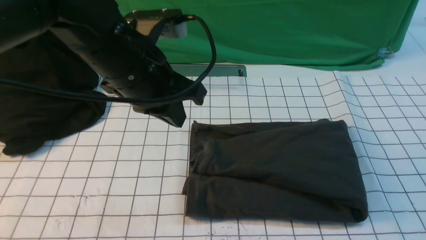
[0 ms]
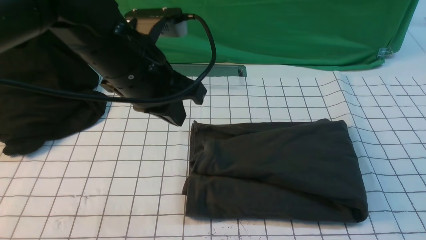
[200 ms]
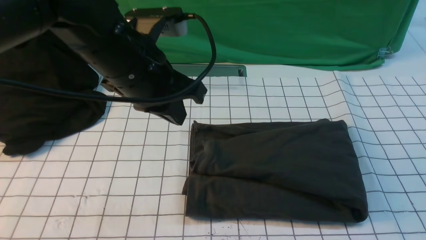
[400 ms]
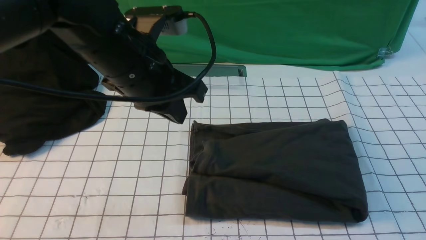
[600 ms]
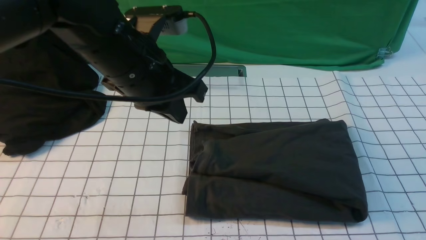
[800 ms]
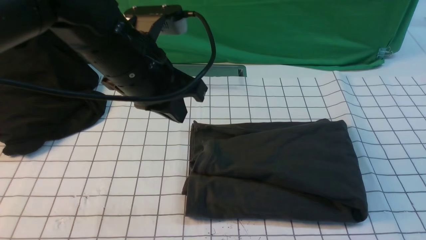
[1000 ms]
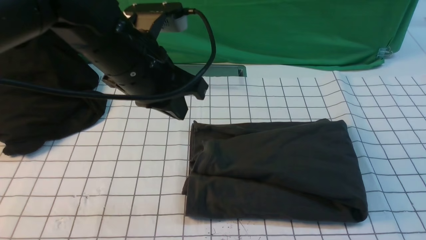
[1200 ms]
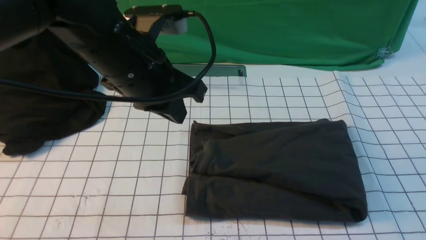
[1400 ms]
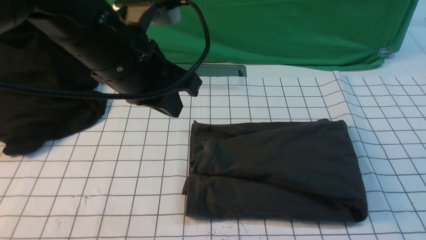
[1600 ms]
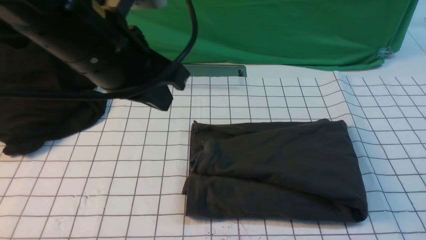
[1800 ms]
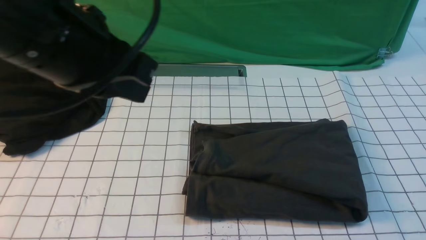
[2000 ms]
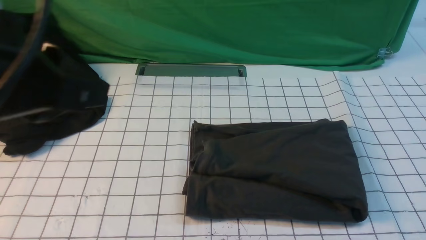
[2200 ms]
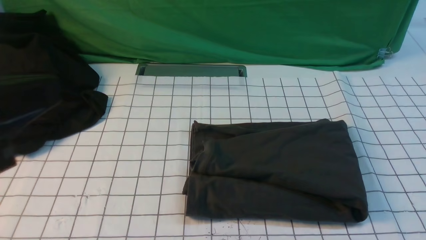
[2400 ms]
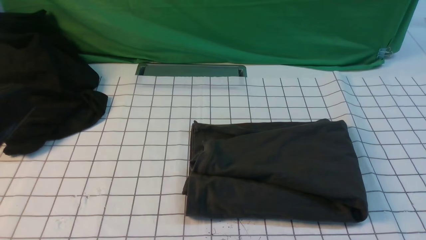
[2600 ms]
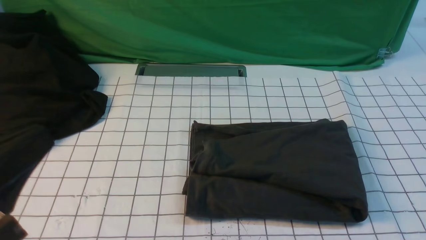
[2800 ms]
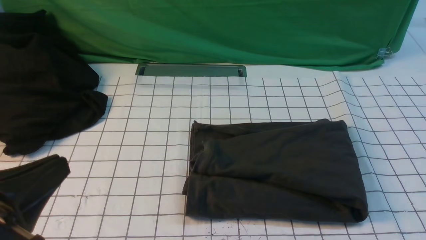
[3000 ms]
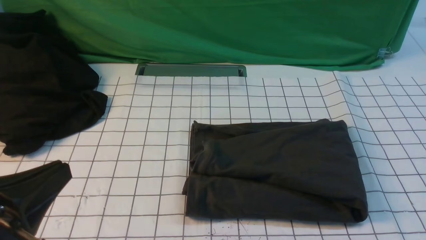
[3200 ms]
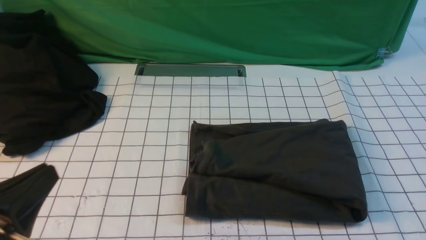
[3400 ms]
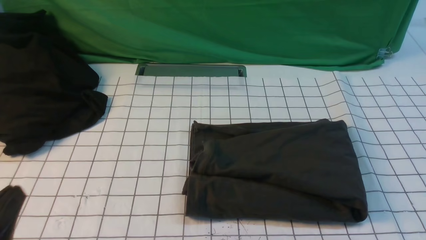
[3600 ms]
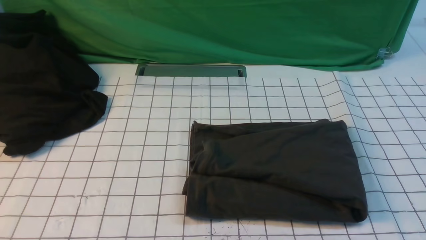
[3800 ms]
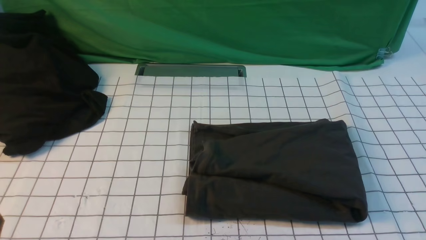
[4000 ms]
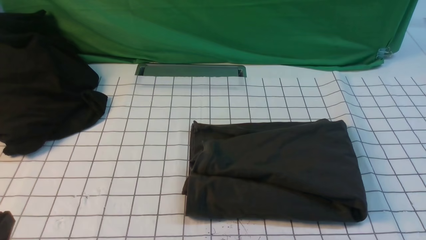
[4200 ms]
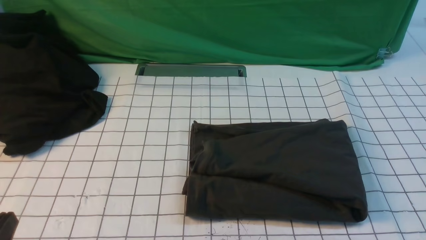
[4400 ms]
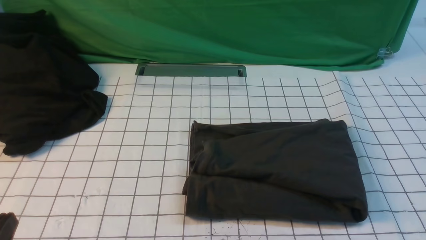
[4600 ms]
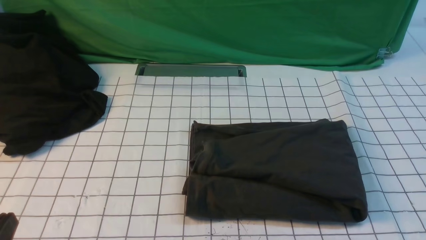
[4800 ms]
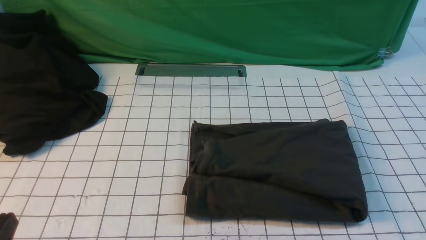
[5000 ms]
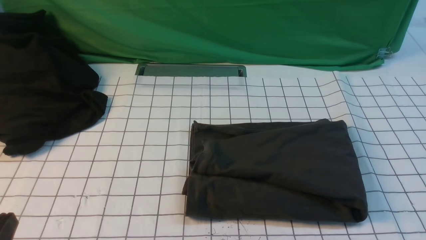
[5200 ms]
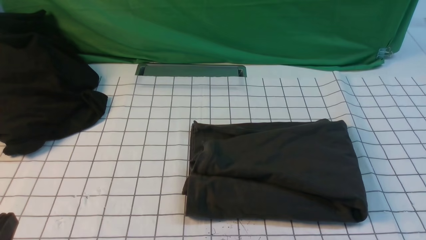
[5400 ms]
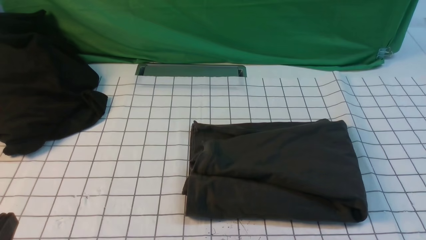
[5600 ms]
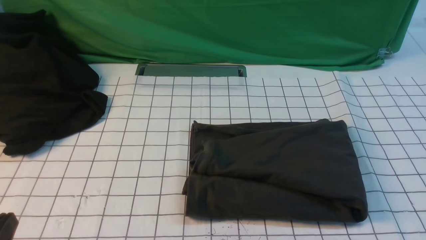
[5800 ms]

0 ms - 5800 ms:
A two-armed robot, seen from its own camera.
0 ms - 1400 ms: The right gripper is displaced downward by approximately 15 cm.
1400 ms - 2800 ms: The left gripper heads backward and to the left, covering roughly 25 cm.
2800 ms - 4400 ms: The left gripper goes about 15 cm downward.
4400 ms - 5800 ms: Both grippers stay about where they are.
